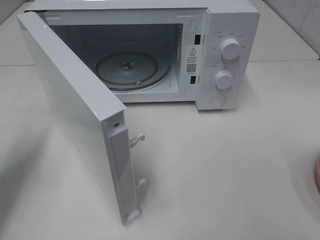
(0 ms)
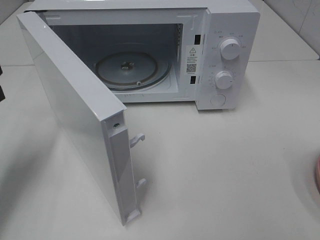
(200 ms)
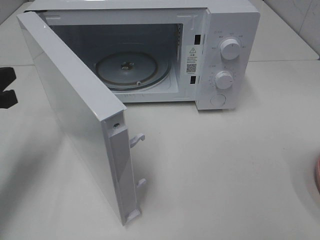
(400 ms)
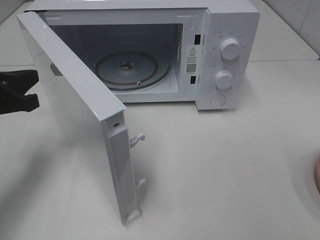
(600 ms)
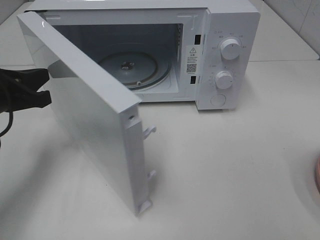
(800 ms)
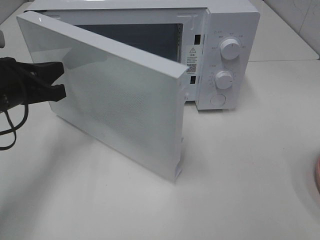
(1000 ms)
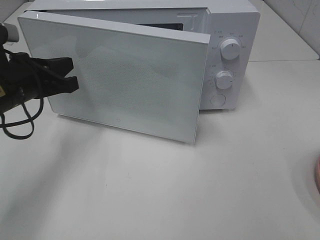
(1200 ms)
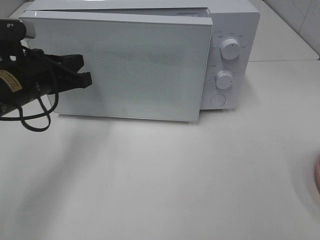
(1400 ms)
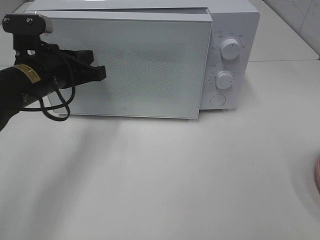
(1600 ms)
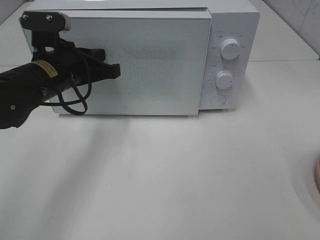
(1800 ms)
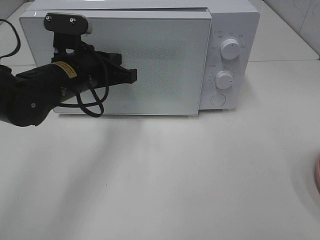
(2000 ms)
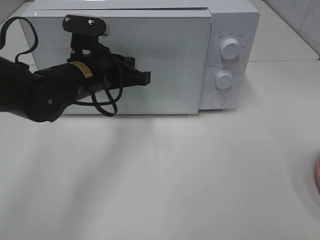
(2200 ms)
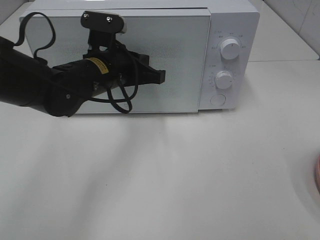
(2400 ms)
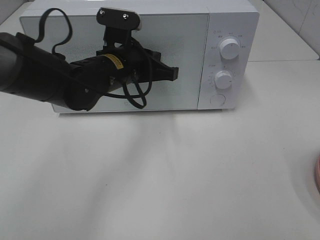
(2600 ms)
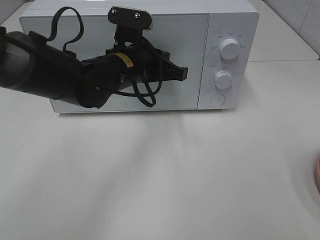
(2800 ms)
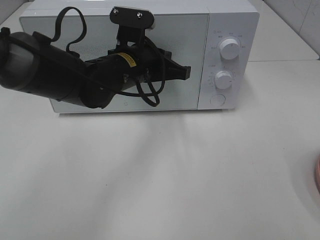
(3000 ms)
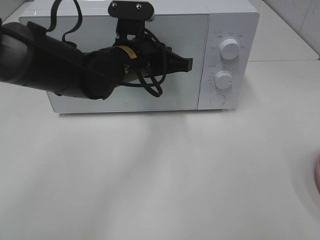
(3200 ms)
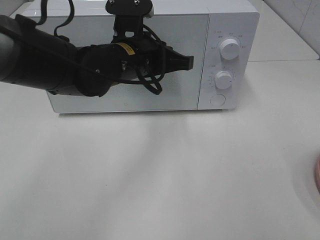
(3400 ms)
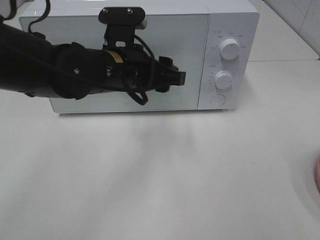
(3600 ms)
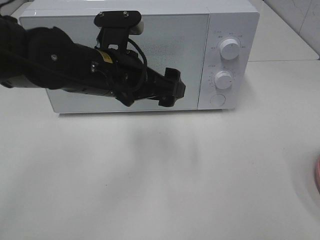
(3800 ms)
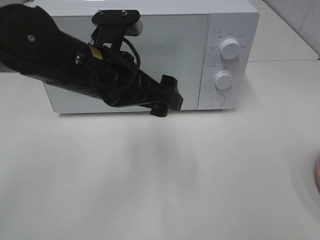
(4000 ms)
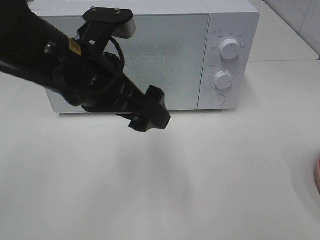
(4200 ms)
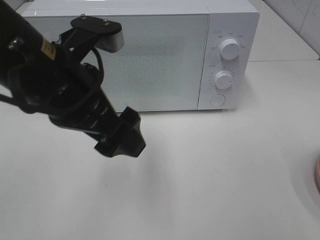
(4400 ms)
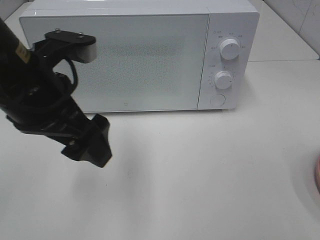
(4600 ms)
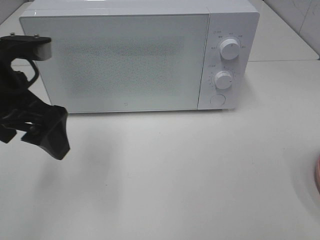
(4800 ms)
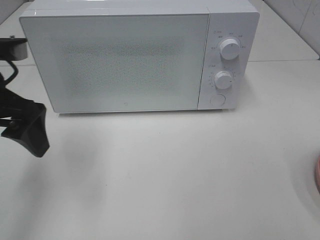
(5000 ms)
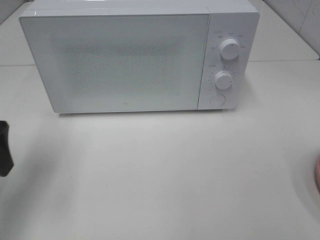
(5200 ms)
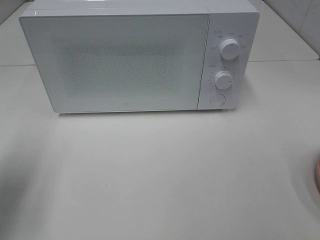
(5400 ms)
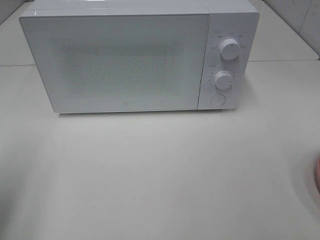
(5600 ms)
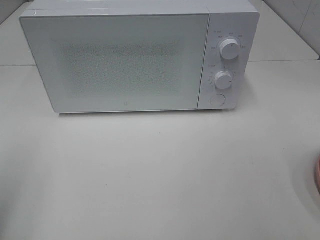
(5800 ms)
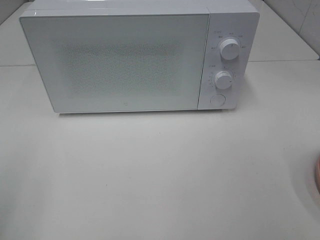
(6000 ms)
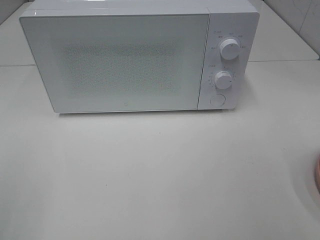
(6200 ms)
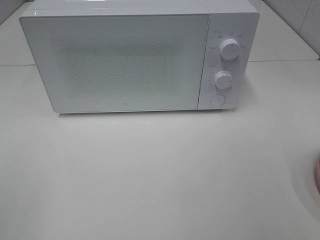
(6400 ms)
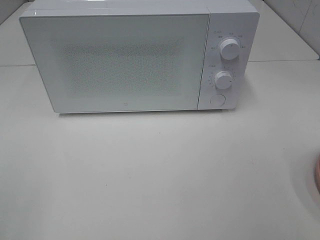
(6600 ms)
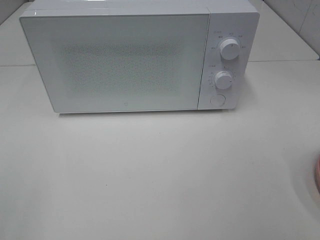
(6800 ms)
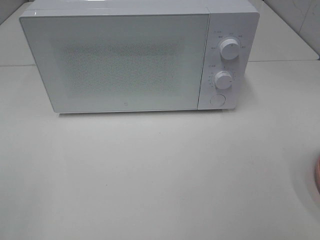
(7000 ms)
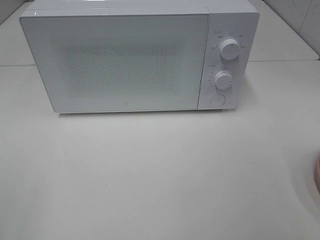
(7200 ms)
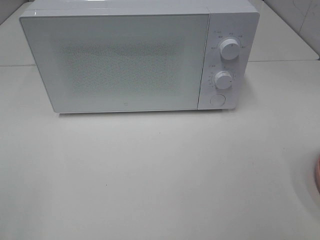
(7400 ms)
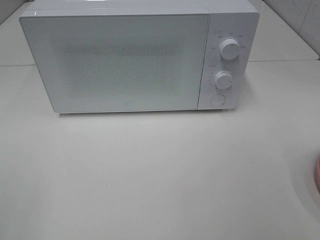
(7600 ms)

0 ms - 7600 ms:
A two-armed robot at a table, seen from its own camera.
Task of the whole recording: Heat the burger.
Step, 0 ms - 3200 ms: Left hand: close the microwave door.
0 ms - 1600 ms: The left gripper heads to the right and forward, covering some 15 cm.
1600 ms - 3000 ms: The left gripper moves to the right, some 15 cm.
3000 ms - 4600 ms: The left gripper shifts roughly 20 cm backward, to the left and upward, and opens up.
4600 ms - 6000 ms: The left gripper goes some 25 cm to the left and backward.

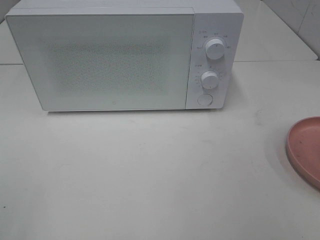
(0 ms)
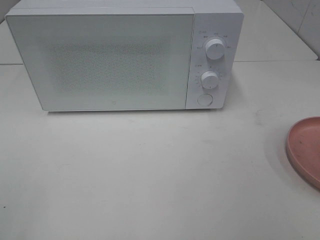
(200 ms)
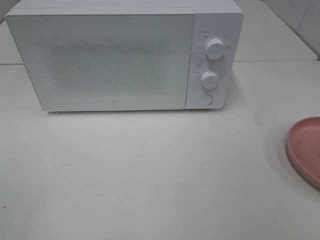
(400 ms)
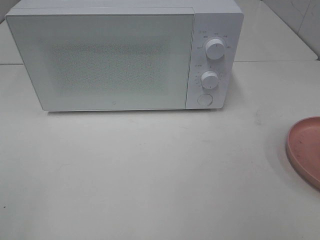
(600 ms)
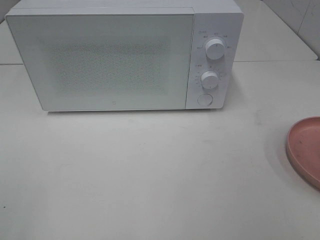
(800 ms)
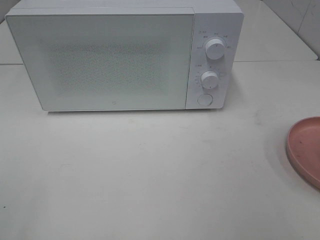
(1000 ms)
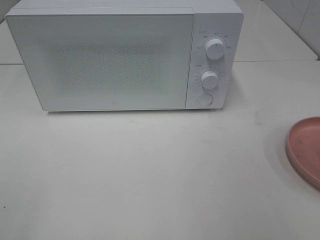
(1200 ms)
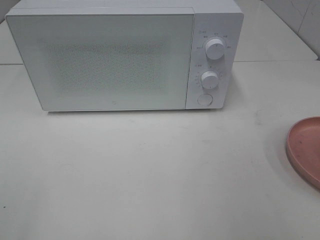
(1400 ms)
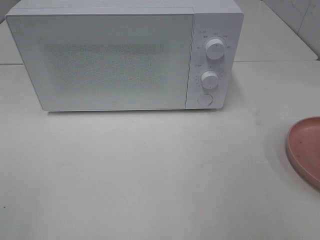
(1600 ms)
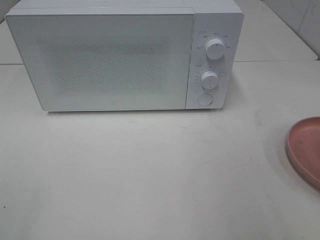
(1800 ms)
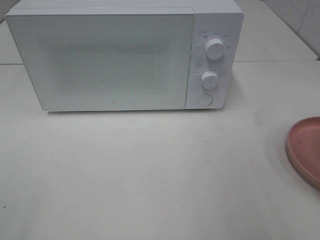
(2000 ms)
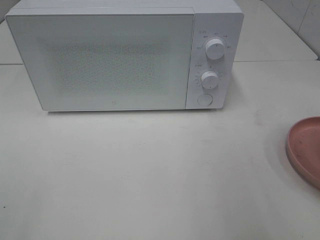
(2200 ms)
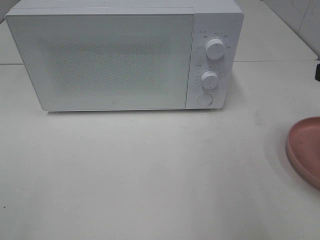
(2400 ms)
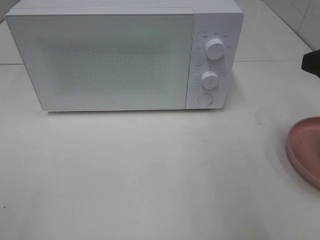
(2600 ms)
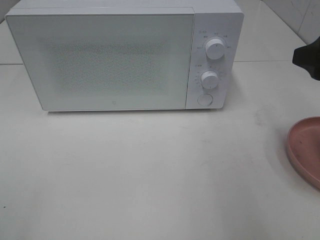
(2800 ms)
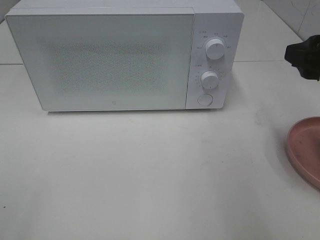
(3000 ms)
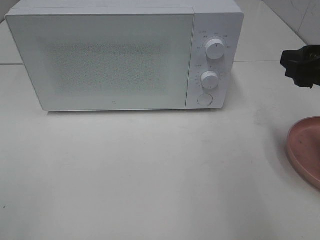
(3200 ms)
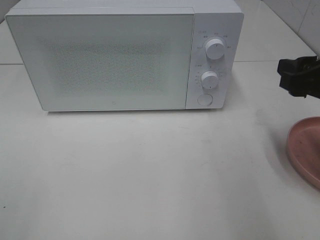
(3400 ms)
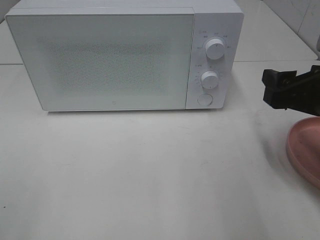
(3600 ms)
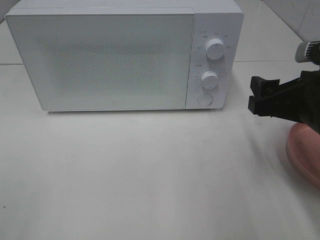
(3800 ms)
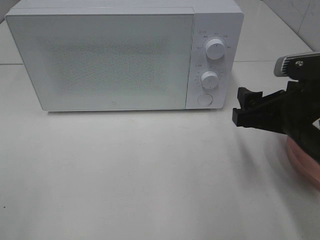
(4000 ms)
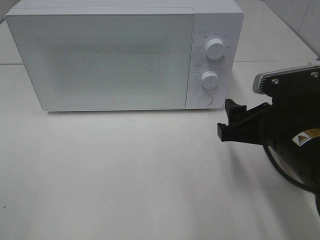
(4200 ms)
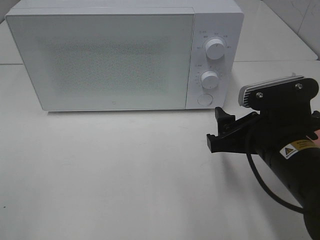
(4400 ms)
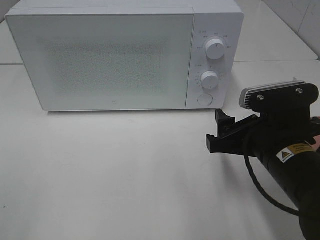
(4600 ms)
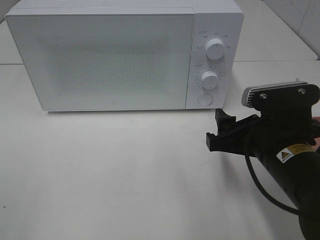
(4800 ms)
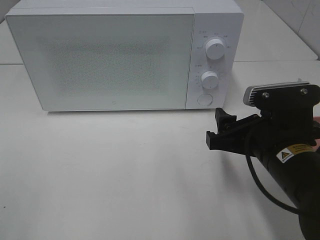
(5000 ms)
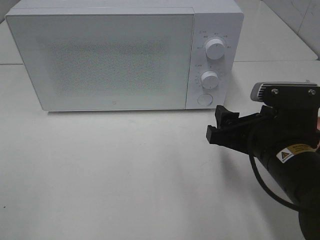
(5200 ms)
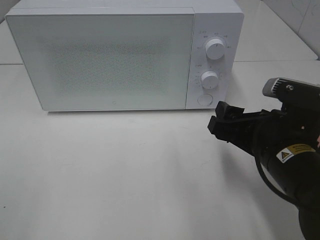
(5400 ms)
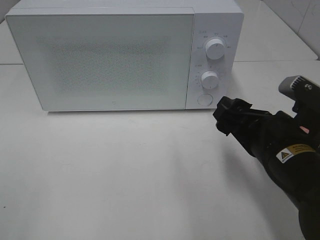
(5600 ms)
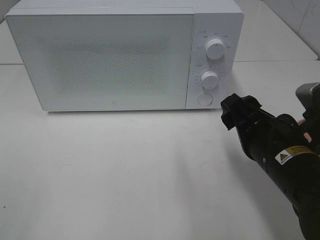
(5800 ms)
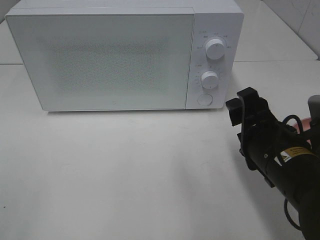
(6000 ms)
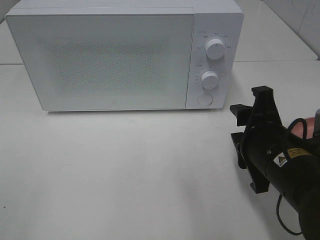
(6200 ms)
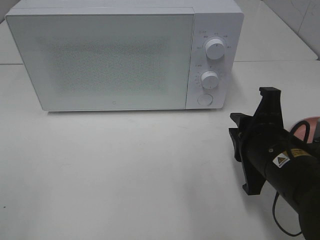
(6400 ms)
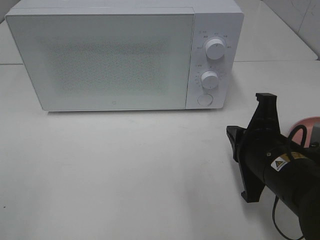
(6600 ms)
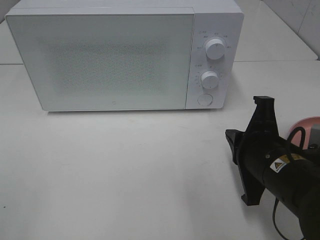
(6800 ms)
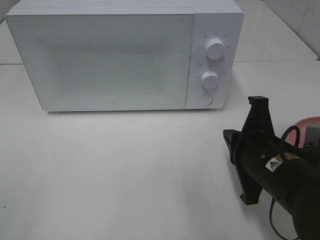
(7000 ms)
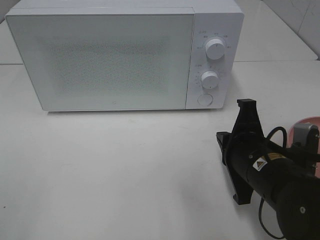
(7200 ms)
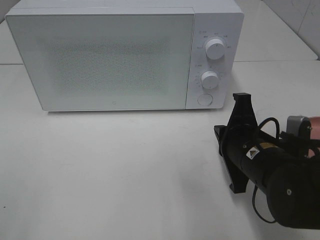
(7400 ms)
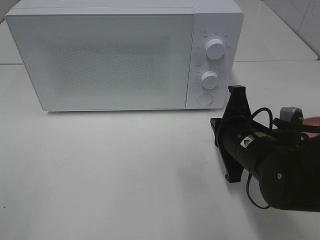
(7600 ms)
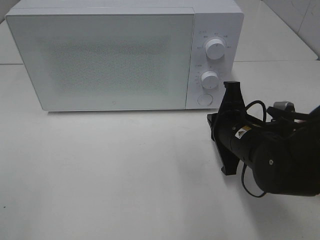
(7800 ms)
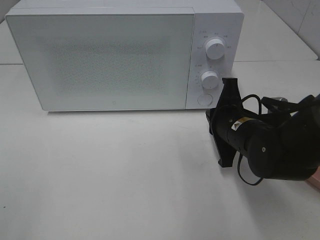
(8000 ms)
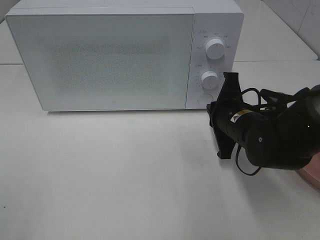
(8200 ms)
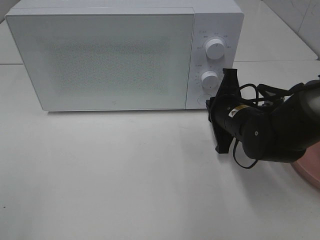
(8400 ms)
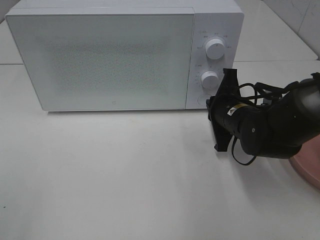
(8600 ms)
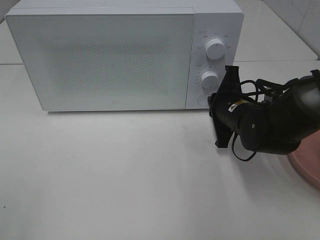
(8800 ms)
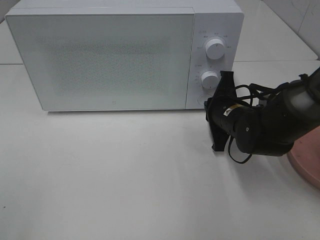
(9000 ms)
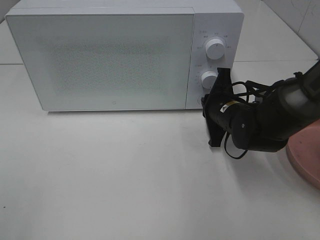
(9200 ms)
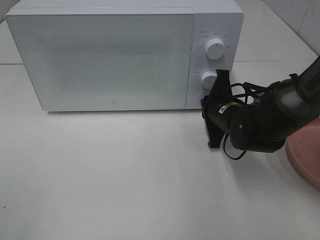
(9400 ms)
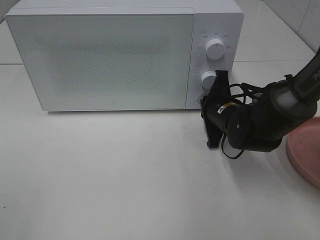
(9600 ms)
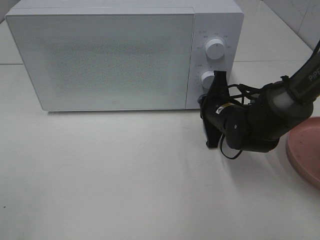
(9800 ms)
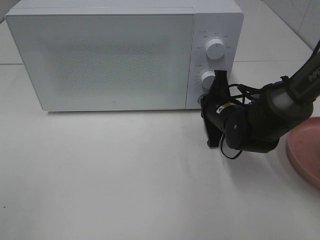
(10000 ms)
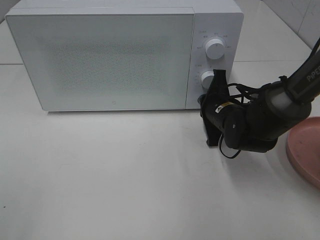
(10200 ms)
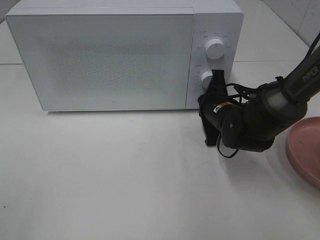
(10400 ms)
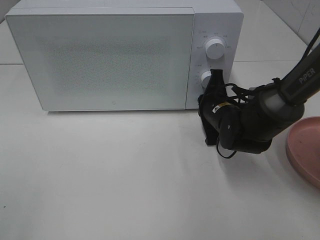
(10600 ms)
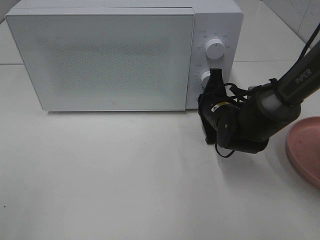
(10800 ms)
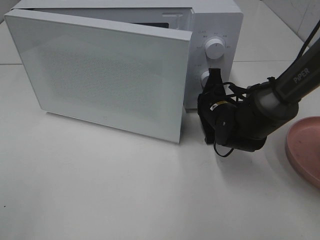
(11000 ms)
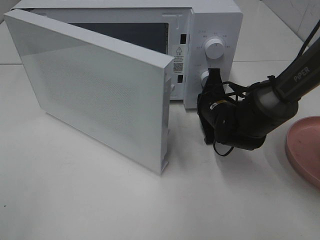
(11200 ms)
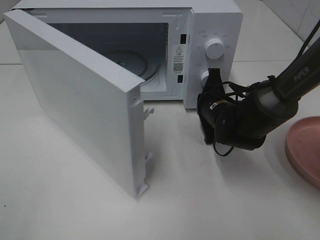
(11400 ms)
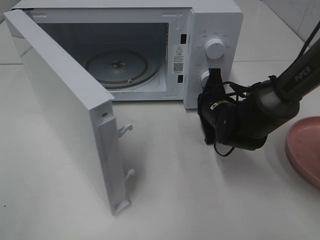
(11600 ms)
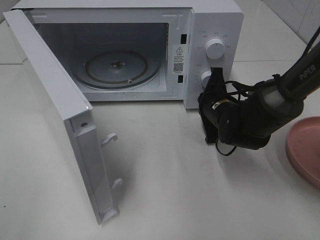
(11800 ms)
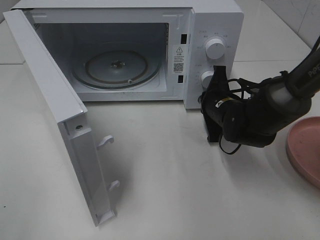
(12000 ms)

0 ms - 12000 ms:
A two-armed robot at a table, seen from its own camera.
Task of the whole recording: Heat the burger.
1600 ms - 3000 ms: The right gripper goes some 15 cm forward.
3000 ms - 4400 ms: The right gripper travels downward and to the left by approximately 15 cm.
6000 ms - 7600 ms: The right gripper changes place by some 5 cm, and closes its fingers.
7600 ms - 9000 ms: The right gripper is displaced forward by approximately 10 cm.
9000 ms - 10400 ms: The grippers make only small movements.

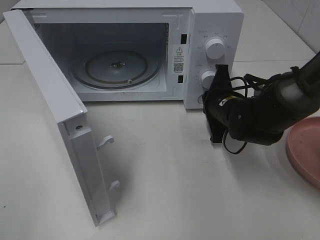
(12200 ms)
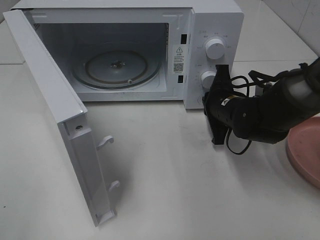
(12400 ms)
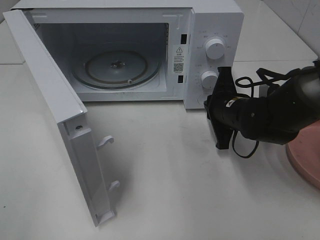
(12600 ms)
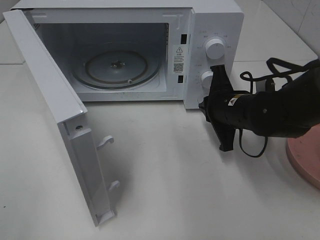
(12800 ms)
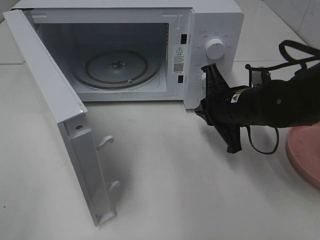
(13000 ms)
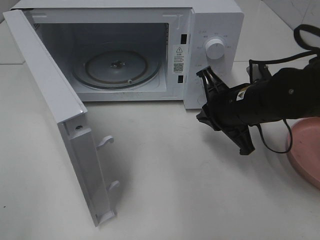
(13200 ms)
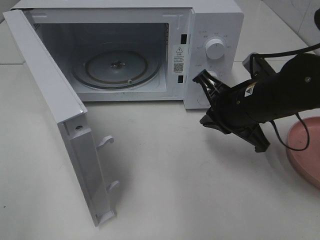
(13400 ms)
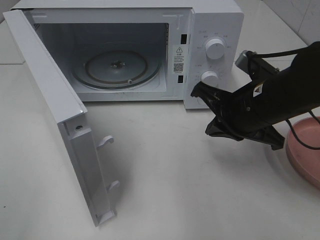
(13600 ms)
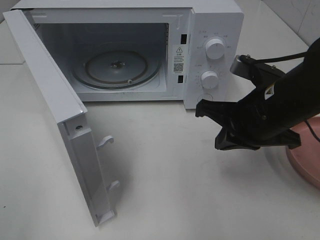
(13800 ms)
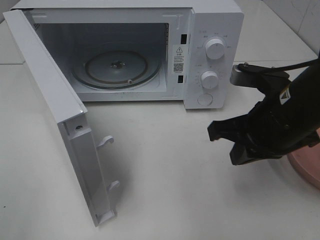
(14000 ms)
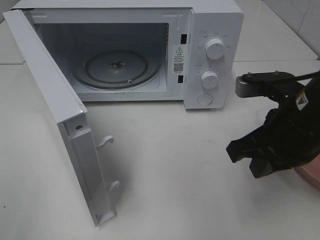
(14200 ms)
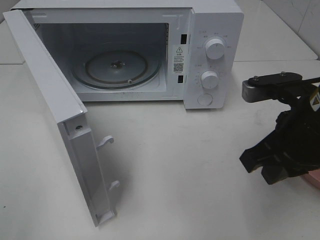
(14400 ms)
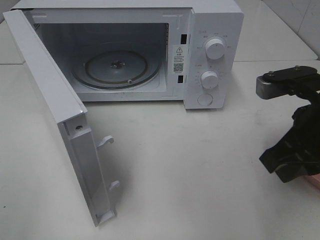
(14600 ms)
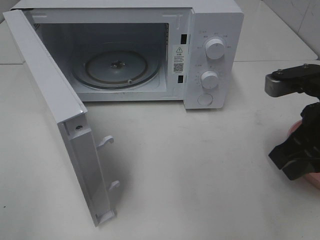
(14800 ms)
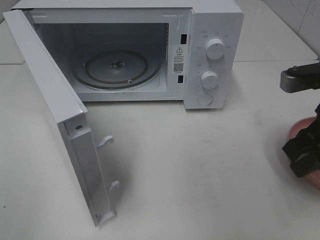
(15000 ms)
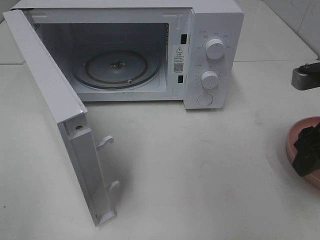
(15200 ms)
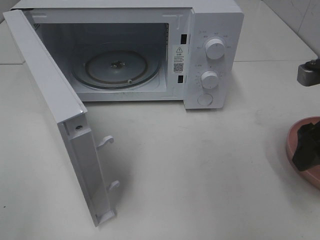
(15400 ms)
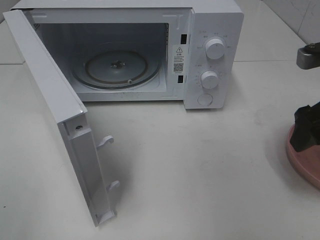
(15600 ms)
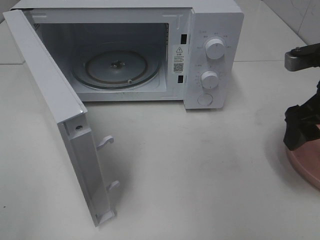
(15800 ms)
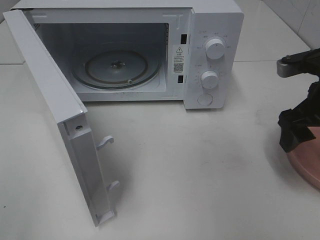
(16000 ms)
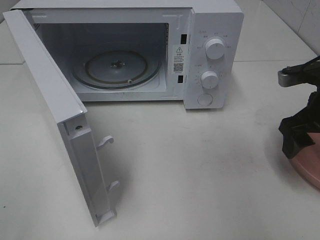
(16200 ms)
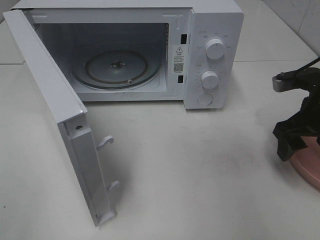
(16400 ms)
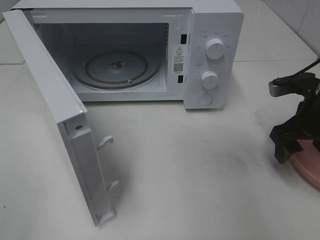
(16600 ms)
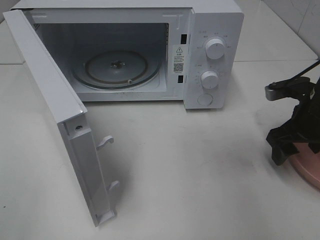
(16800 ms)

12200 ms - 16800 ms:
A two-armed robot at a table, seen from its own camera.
Task of the whole recording: Heat the burger.
12200 ms - 13800 ms: The right gripper travels backward and upward by some 15 cm.
13800 ms - 15200 ms: The right gripper is displaced to the right by about 10 cm, and opens its fingers.
15200 ms - 16800 ms: The right gripper goes some 15 cm forward and downward.
